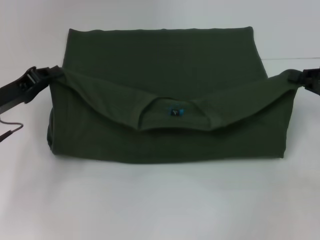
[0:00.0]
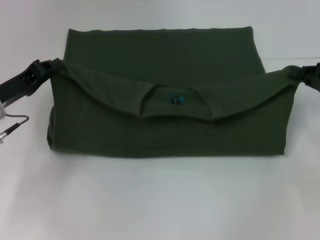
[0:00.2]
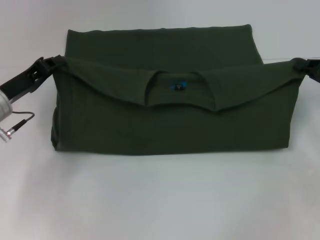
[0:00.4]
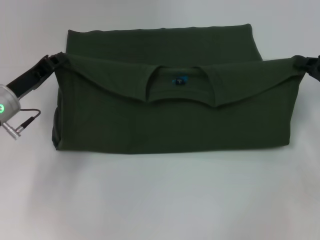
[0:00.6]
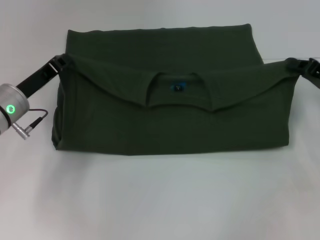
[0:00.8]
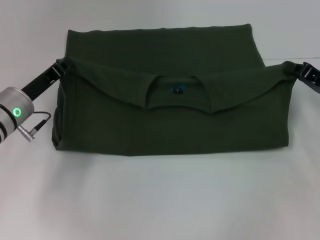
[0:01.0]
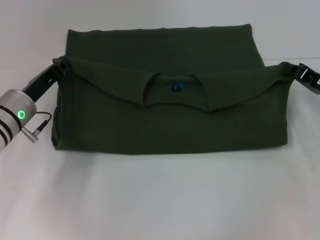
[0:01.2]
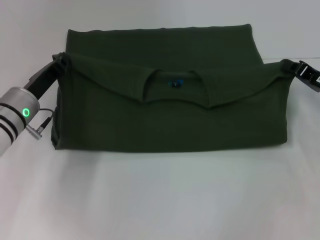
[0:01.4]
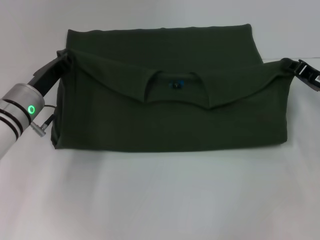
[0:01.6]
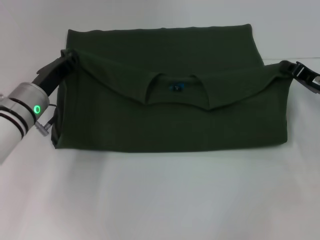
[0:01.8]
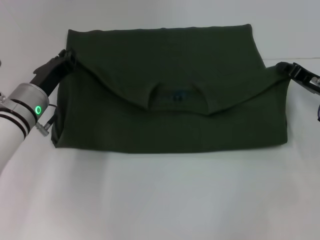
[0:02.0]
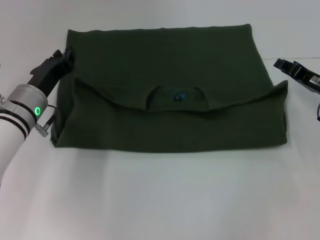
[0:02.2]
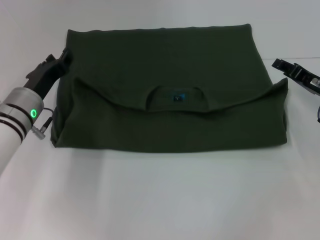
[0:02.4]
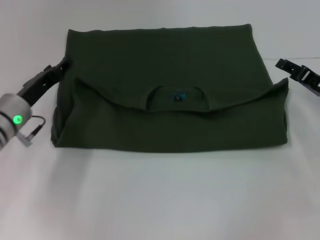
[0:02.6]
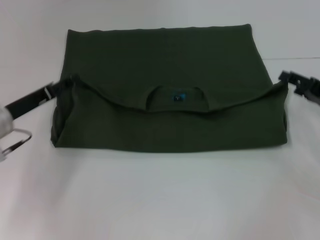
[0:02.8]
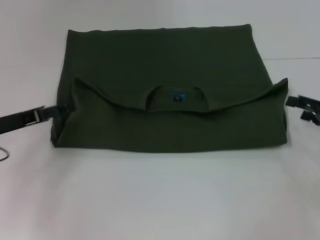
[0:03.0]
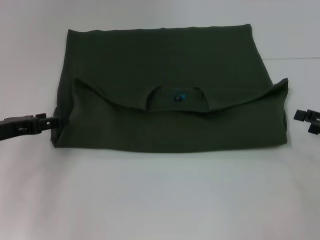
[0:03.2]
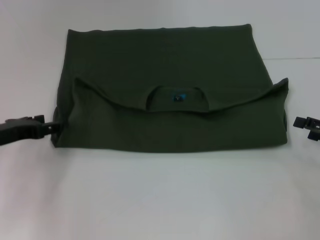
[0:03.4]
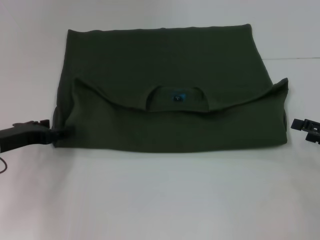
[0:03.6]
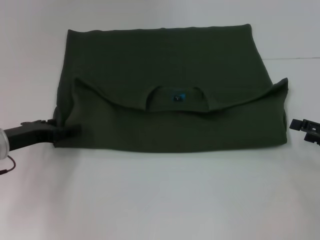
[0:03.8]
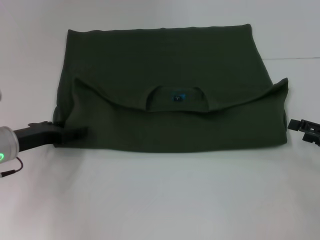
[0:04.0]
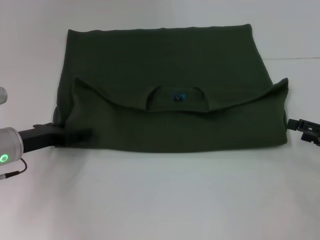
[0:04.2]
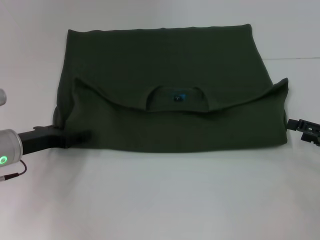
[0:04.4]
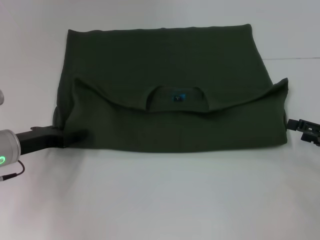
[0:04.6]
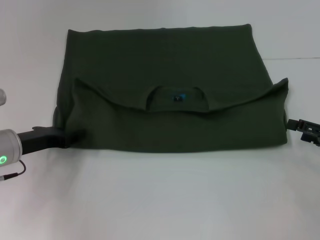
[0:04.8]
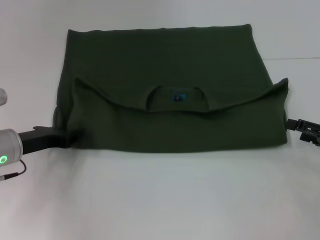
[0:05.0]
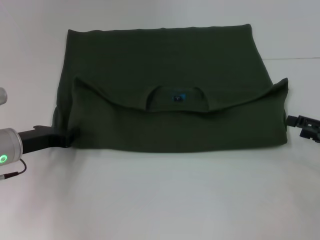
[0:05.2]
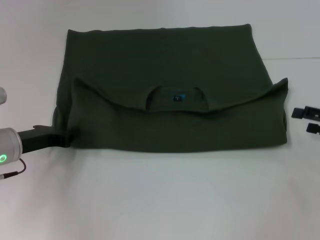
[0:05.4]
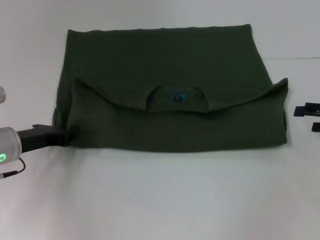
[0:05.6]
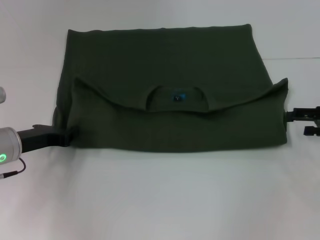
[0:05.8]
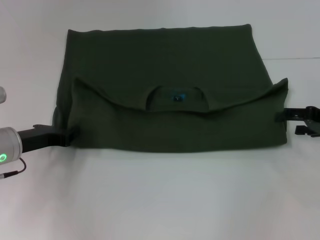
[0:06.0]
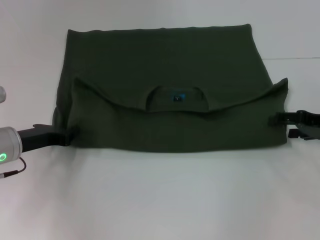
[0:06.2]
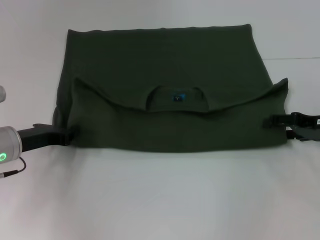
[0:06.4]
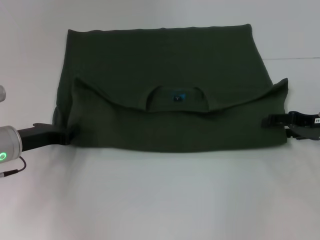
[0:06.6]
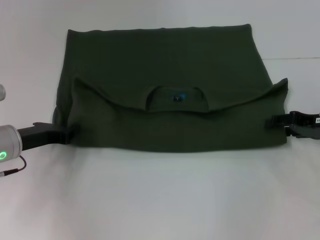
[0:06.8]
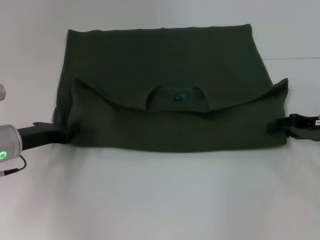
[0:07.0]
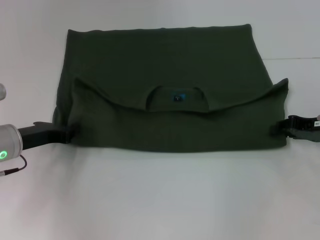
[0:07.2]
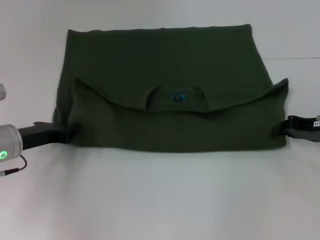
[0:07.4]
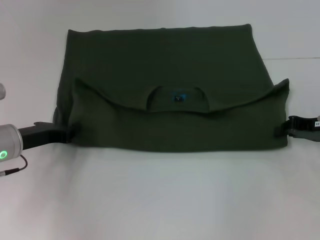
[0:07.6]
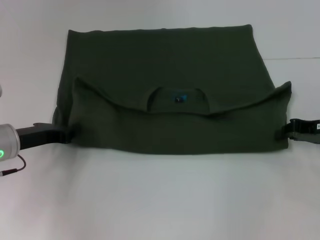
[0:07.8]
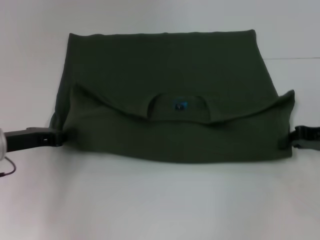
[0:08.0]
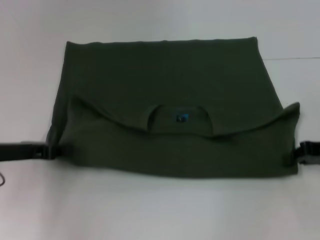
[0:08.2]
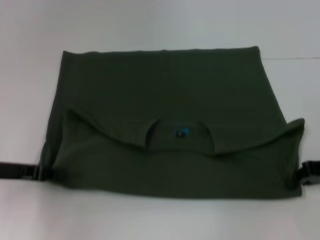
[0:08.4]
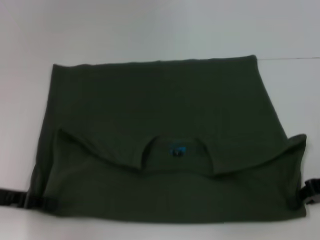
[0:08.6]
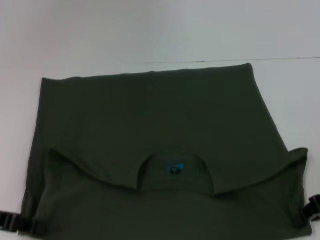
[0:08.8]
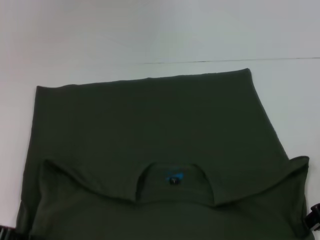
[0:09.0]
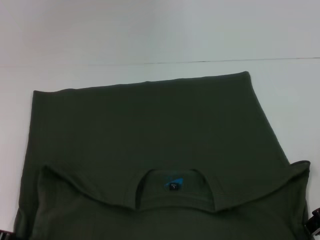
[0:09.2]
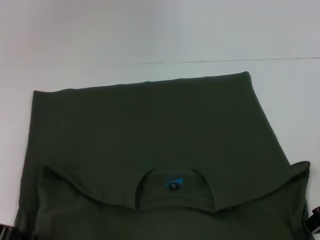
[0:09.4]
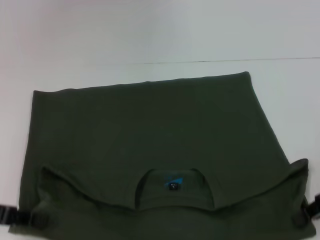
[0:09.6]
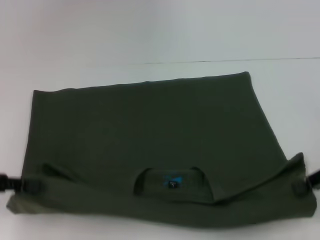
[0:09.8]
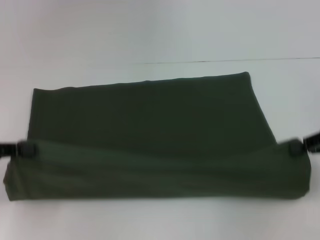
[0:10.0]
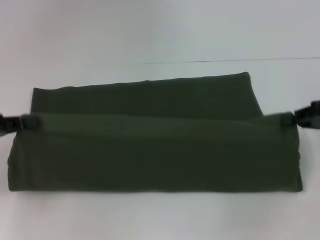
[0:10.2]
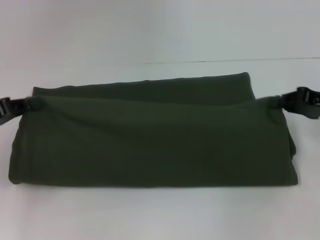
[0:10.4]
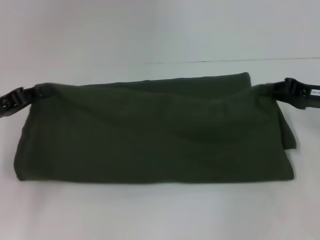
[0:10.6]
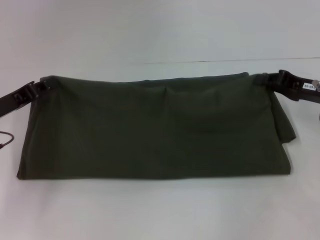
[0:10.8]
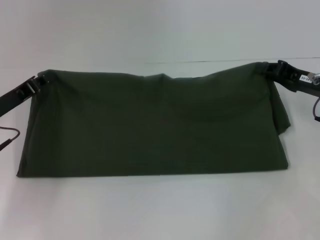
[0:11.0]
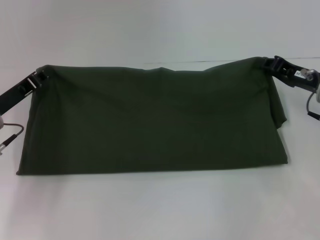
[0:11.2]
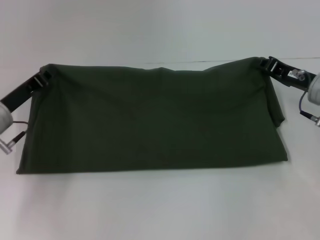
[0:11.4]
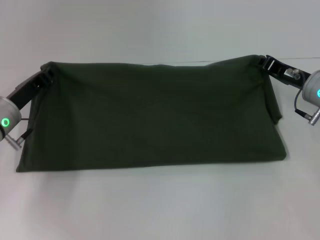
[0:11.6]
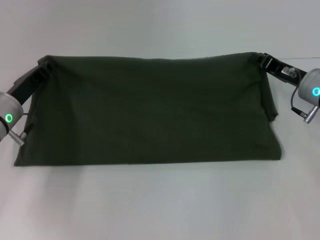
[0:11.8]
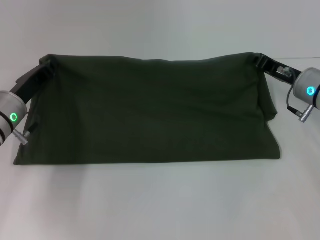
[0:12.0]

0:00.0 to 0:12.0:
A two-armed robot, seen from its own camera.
Step, 0:00.0 to 0:02.0: Fold the clothes with your left hand.
Step, 0:02.4 to 0:09.2: Pull the clothes with your left hand.
Step, 0:02.4 to 0:09.2: Pull the clothes with your right hand.
0:00.0 to 0:01.6: The right gripper shifts by about 5 cm; the left gripper heads to the right, covering about 5 cm.
0:01.6 to 0:03.0: The right gripper moves to the right and backward, about 10 cm, and opens up. The left gripper goes some 10 cm to the left and backward, and opens.
0:03.0 to 0:04.4: The left gripper moves some 5 cm.
0:04.4 to 0:06.0: The right gripper heads forward, covering about 5 cm. Meanwhile the left gripper closes its fingers.
0:06.0 to 0:07.6: The right gripper closes up.
0:07.6 to 0:09.0: The right gripper moves backward, roughly 5 cm. The left gripper moves backward and to the left, roughly 10 cm.
0:09.0 to 0:10.4: Both grippers move forward, approximately 5 cm.
0:10.4 to 0:12.0: The right gripper moves to the left and forward, roughly 10 cm. Meanwhile the left gripper shifts roughly 15 cm to the right, forward and downward.

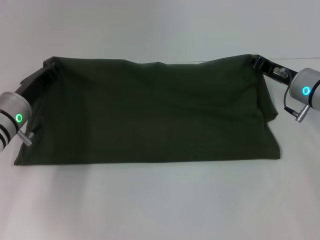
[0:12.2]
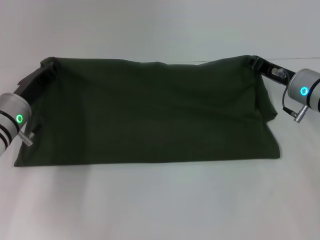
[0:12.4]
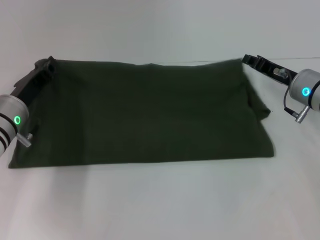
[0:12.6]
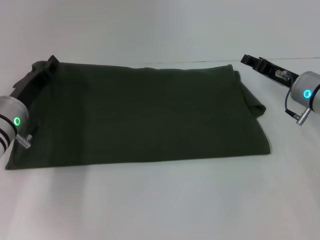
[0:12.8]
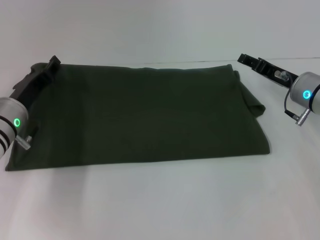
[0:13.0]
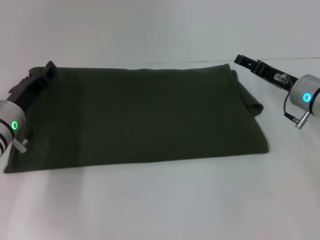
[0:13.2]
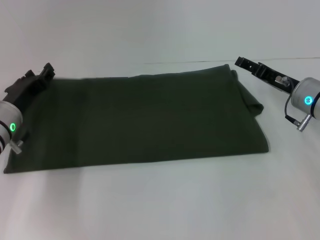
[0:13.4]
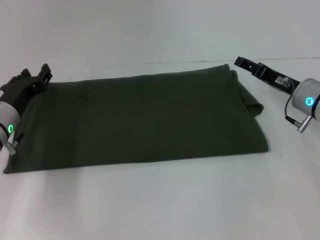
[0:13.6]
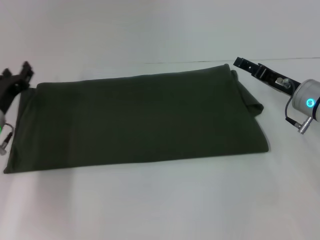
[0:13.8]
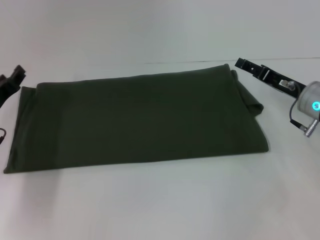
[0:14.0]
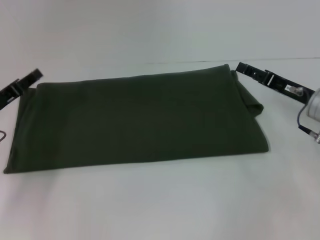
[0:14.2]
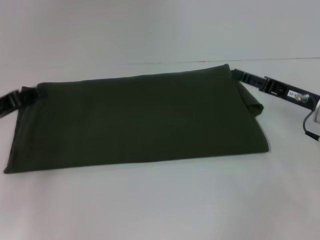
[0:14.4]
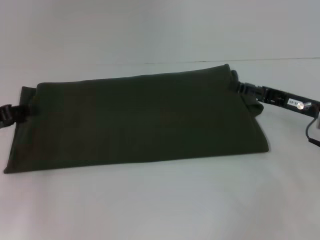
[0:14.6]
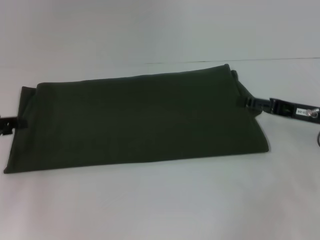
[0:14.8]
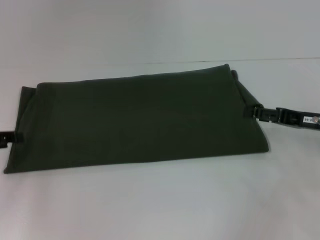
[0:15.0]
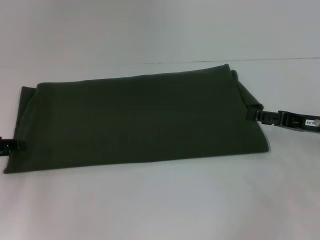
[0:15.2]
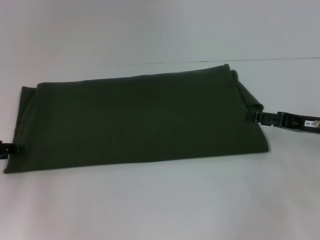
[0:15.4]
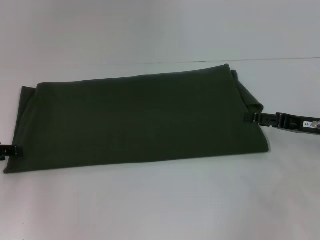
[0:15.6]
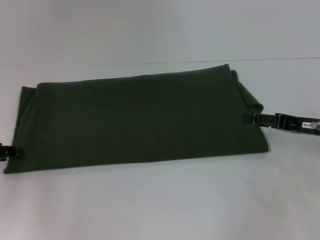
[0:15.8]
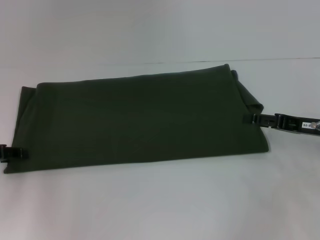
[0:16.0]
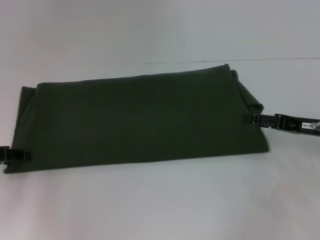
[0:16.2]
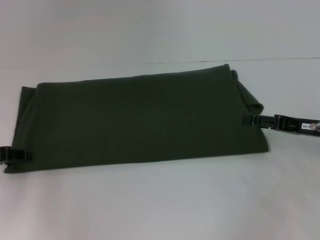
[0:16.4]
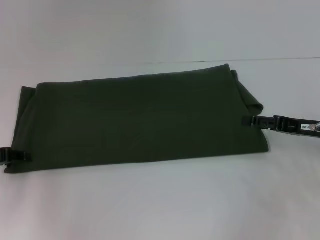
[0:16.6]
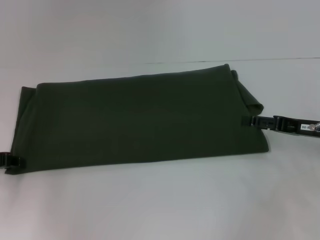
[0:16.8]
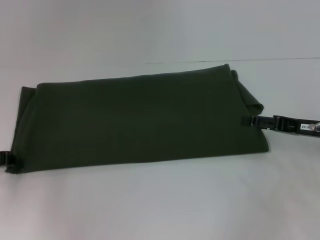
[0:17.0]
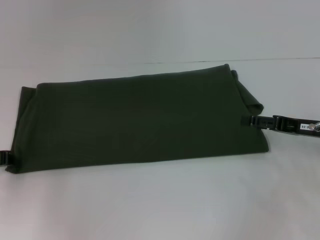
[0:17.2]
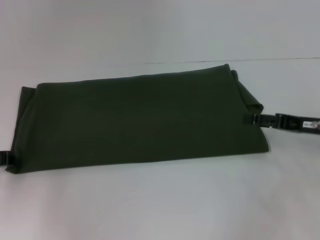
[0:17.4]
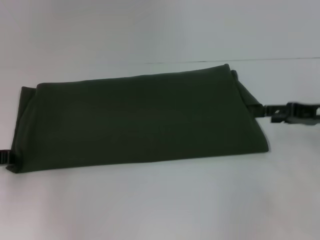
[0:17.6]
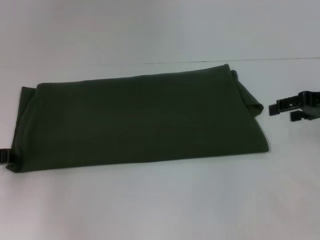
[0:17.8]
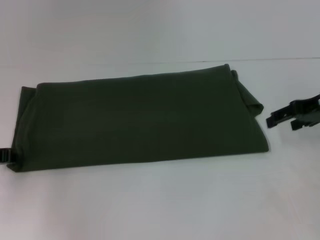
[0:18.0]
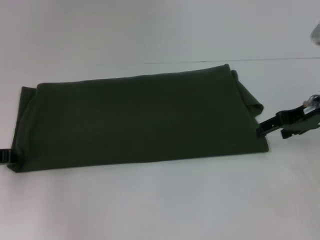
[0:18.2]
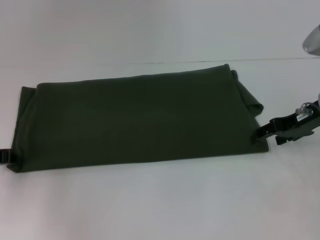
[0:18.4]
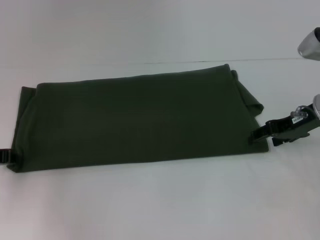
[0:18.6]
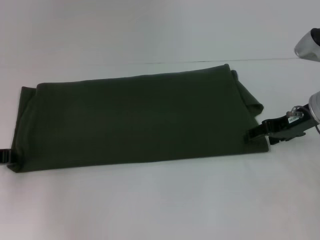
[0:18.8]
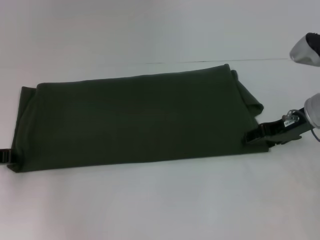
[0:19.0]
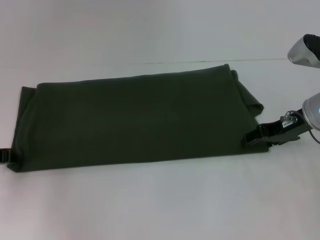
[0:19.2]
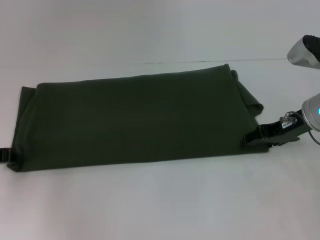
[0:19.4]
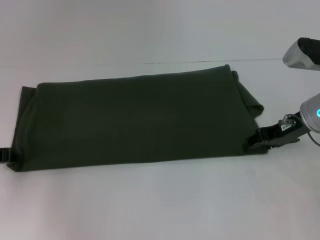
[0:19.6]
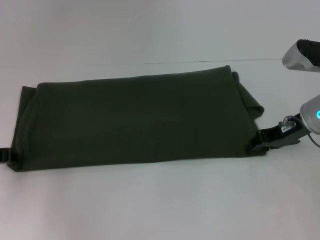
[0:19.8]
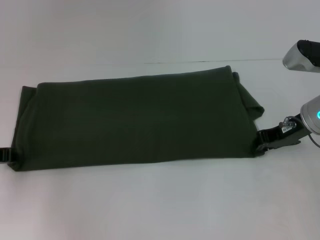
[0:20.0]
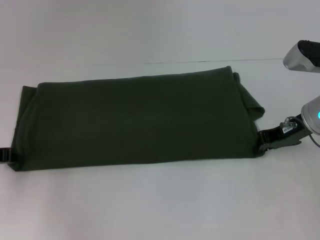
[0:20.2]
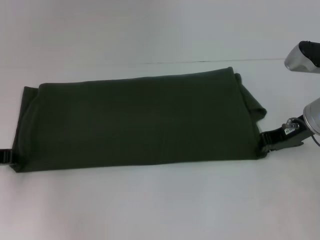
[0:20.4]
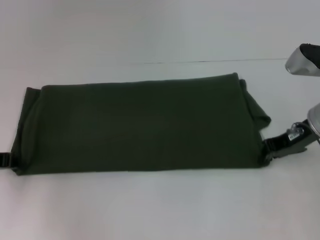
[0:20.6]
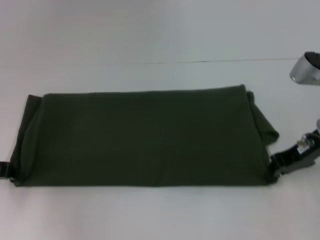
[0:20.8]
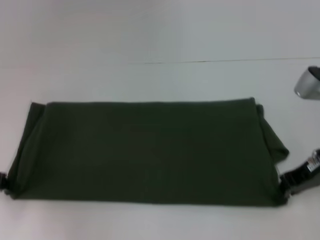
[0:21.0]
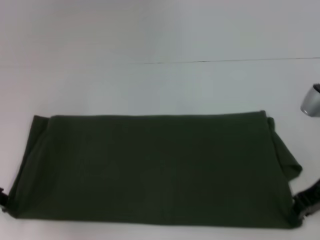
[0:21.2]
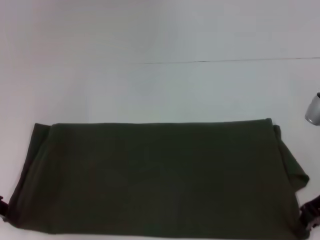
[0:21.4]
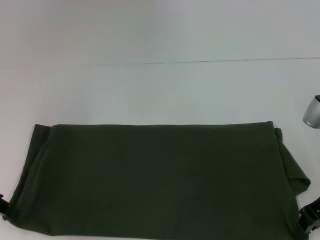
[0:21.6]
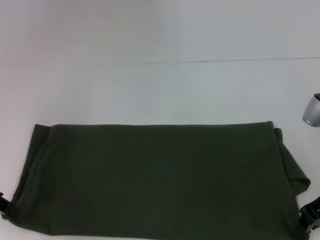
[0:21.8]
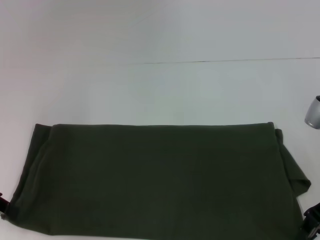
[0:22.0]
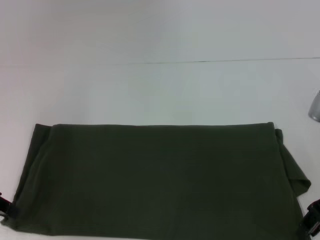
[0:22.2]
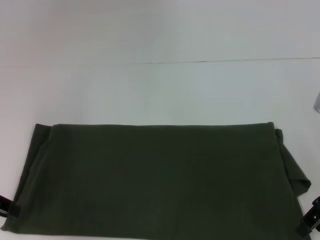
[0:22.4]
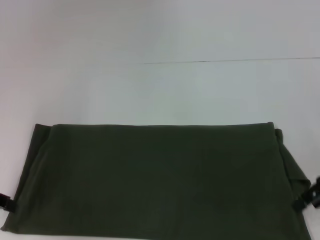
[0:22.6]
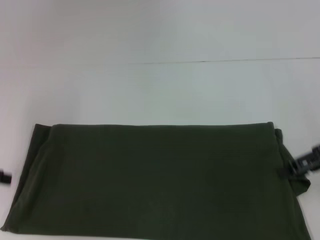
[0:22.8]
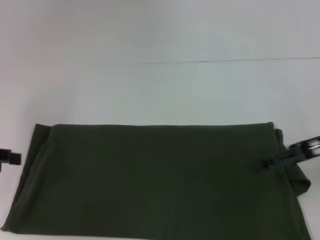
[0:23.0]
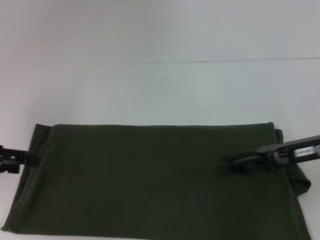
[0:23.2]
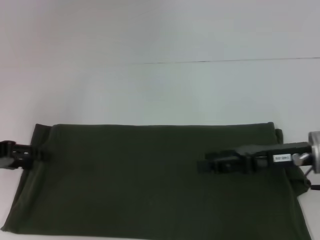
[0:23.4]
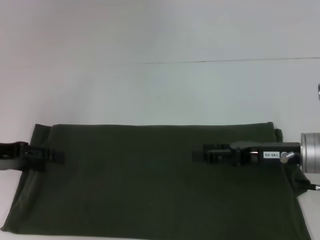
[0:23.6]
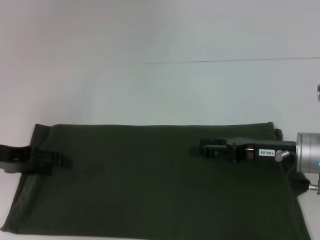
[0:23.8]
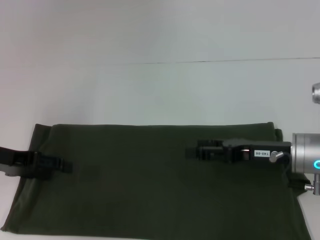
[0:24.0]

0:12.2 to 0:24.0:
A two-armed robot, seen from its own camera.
Step, 0:12.8 to 0:13.4: Fold the clothes with your left hand.
Step, 0:13.6 to 0:21.8: Pull the clothes with your right hand.
0:12.2 to 0:13.6: The right gripper opens up. The left gripper opens its fingers.
0:13.6 to 0:15.2: The right gripper heads to the right and backward, covering about 10 cm, while the left gripper travels to the left, backward and upward by approximately 15 cm.
0:15.2 to 0:16.6: The grippers move only a little.
0:16.6 to 0:18.2: The right gripper travels upward and forward by some 10 cm.
0:18.2 to 0:19.6: The grippers move only a little.
0:19.6 to 0:21.0: The right gripper closes up.
0:21.0 to 0:22.6: The right gripper ends up some 5 cm from where it was, and opens.
0:22.6 to 0:24.0: The right gripper heads downward and to the left, covering roughly 10 cm. The left gripper shifts by roughly 5 cm, and opens.
